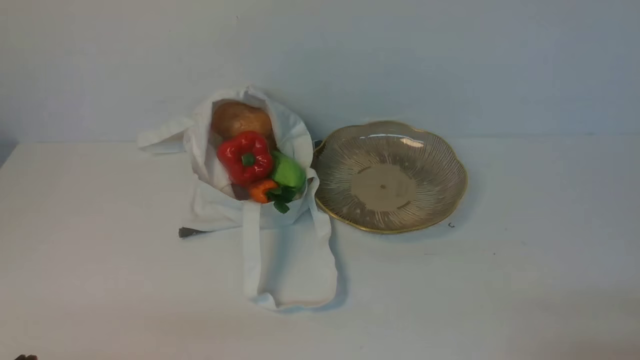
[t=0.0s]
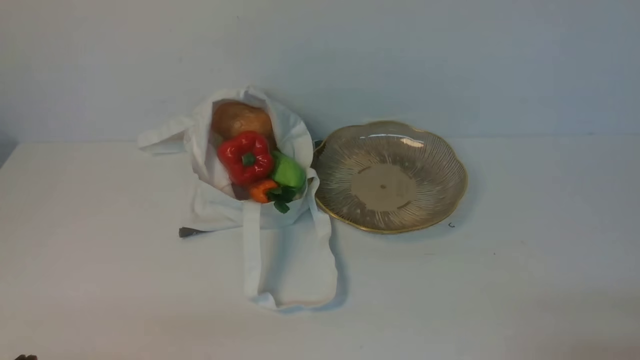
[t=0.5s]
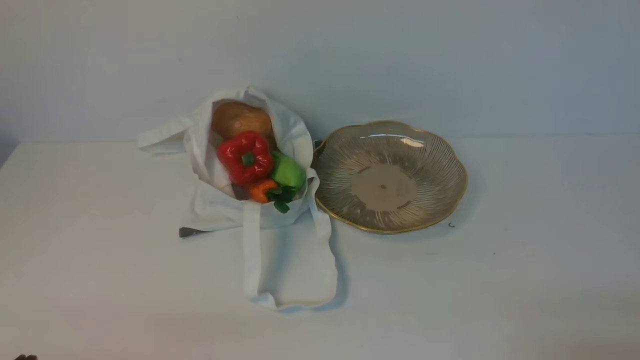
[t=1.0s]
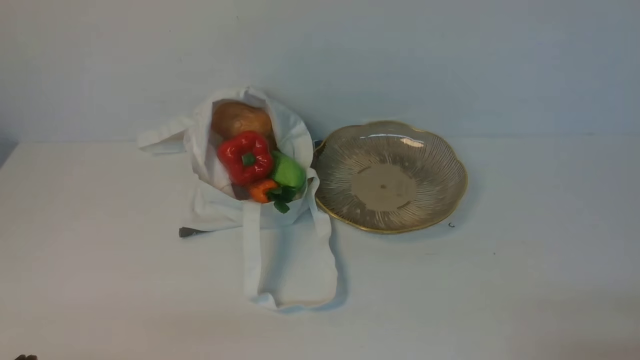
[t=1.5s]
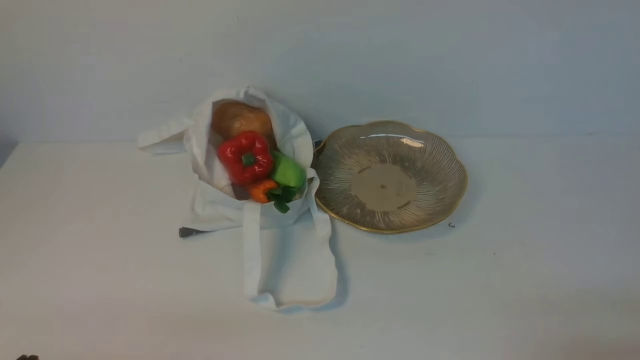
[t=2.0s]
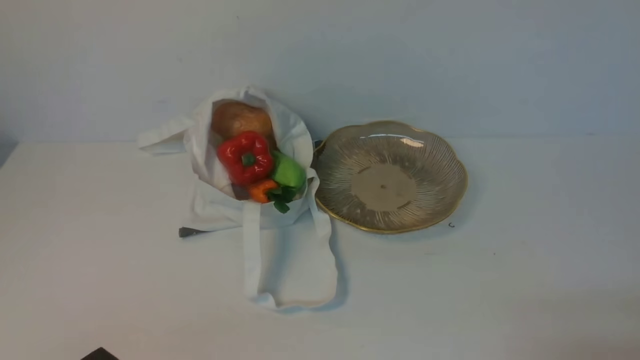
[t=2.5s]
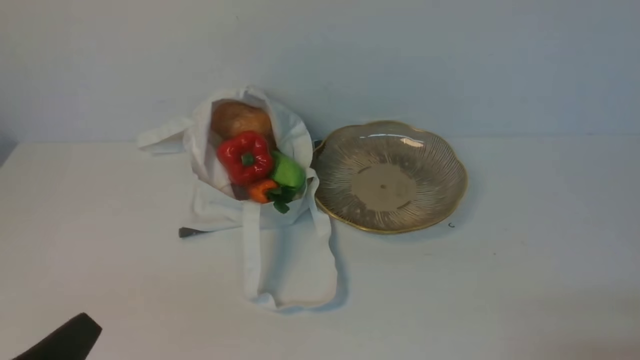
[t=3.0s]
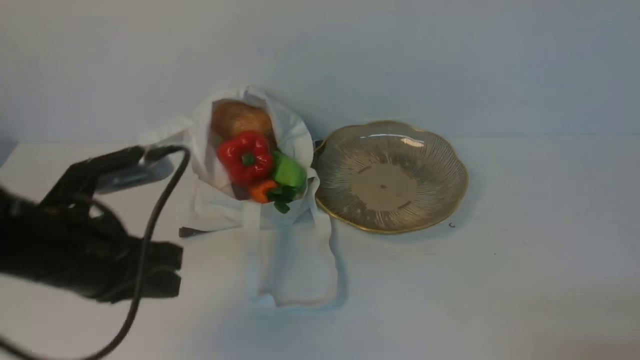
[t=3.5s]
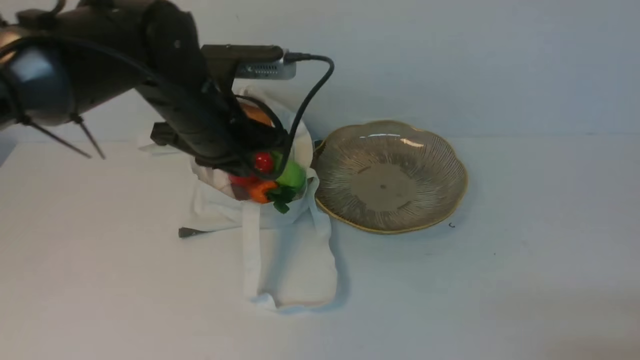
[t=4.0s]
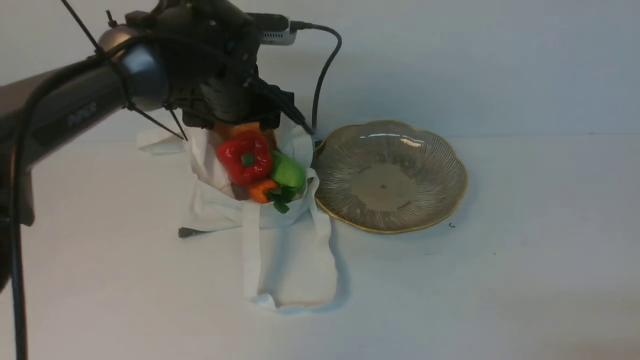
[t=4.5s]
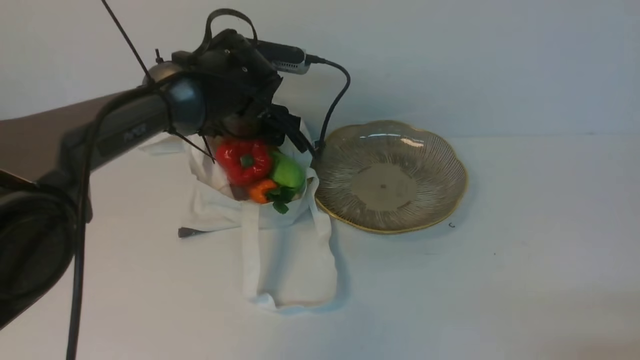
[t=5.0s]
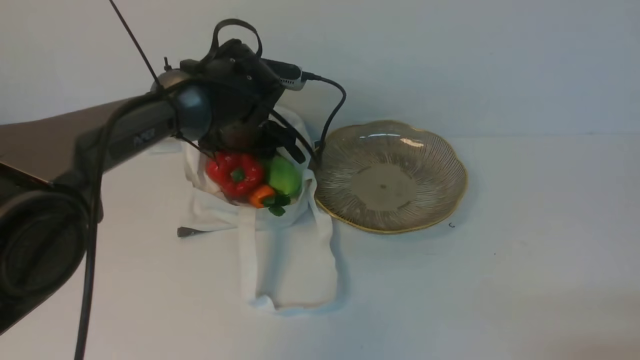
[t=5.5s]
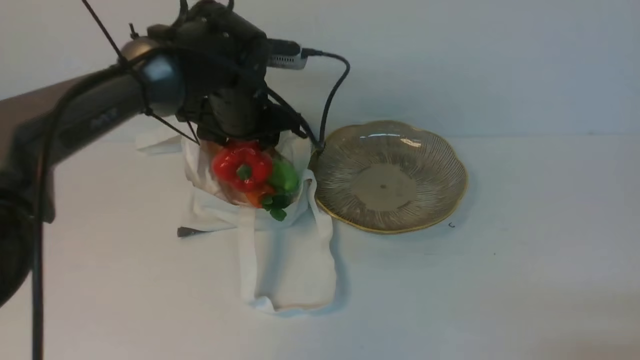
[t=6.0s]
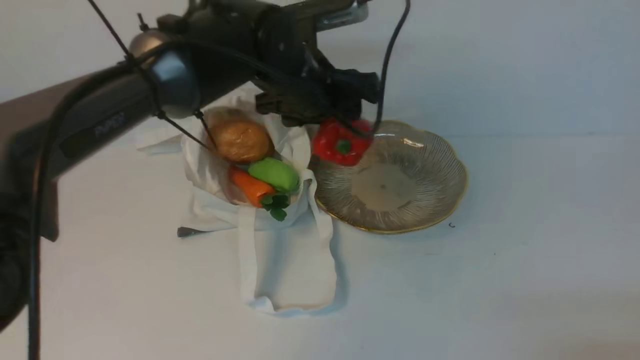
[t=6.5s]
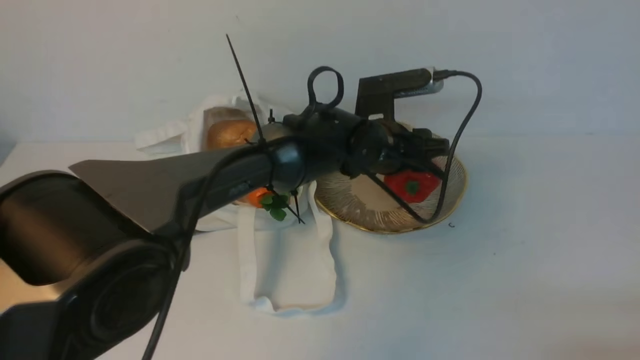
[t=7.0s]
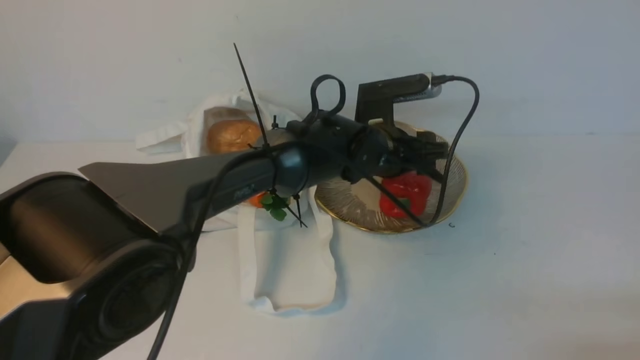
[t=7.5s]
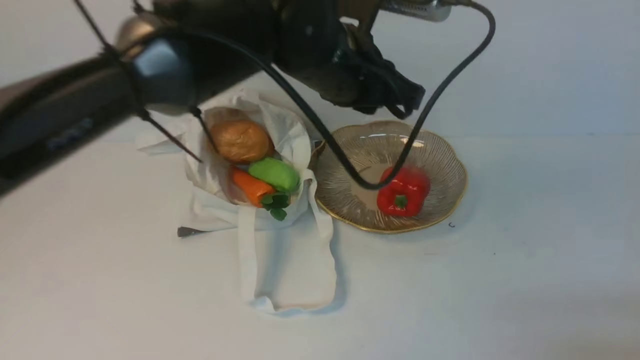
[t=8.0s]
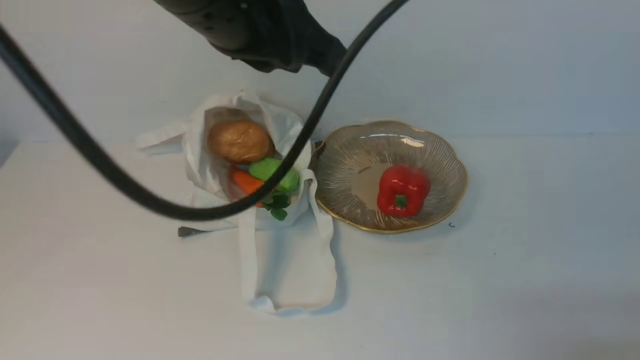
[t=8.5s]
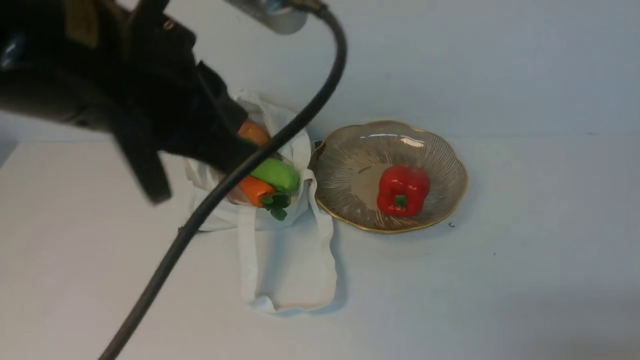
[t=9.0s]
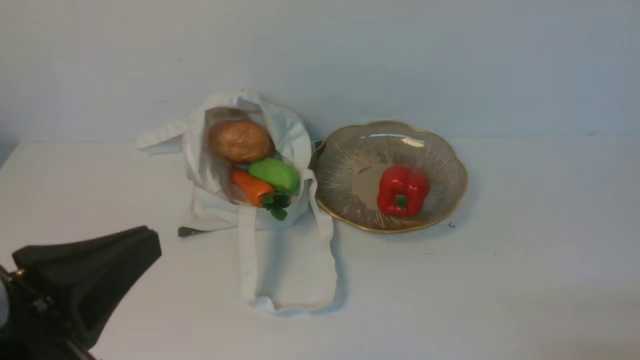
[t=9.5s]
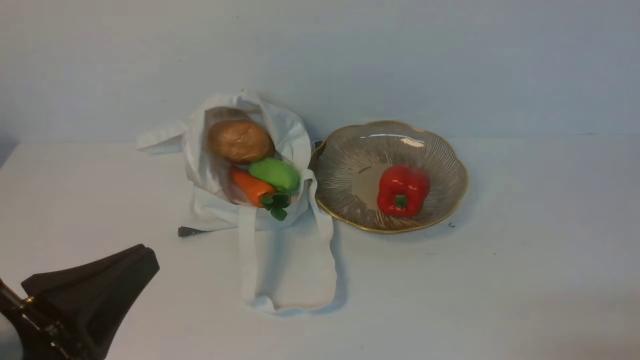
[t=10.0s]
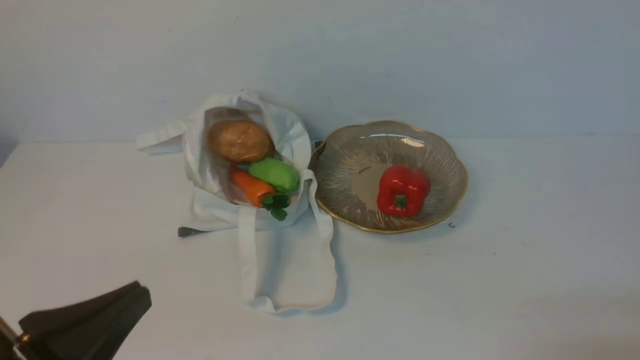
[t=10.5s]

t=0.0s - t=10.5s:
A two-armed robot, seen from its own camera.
Task of the whole recording: take vegetables from cloth bag on white table place on plate.
Step, t=0.0s - t=5.5s: Grasp the bell pepper with left gripper.
Step, t=6.0s - t=7.5s: Place the bell pepper on the plate with left gripper.
t=2.0s - t=4.0s: The left gripper heads forward and to the right, covering approximately 30 cm.
t=4.0s - t=6.5s: The left gripper travels to the right and forward by approximately 10 cm, and opens.
t=6.5s - t=8.5s: The left gripper goes some 20 cm upward and backward, and closes its fingers.
t=8.5s - t=10.5s: The left gripper goes about 30 cm backward, downward and to the left.

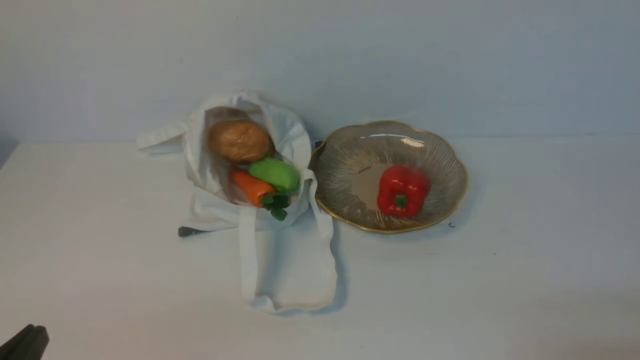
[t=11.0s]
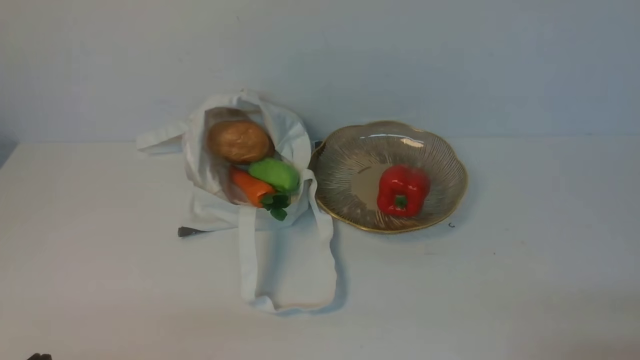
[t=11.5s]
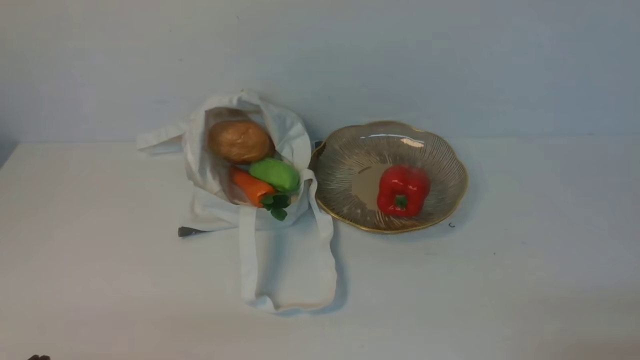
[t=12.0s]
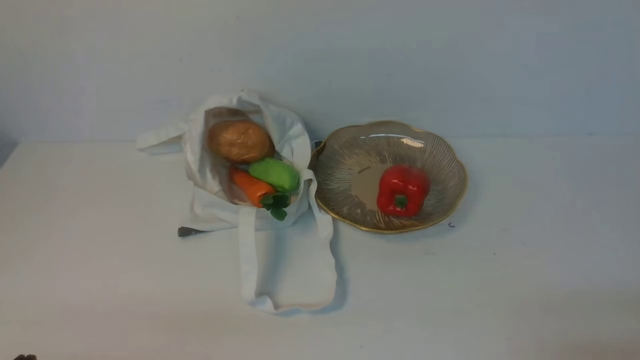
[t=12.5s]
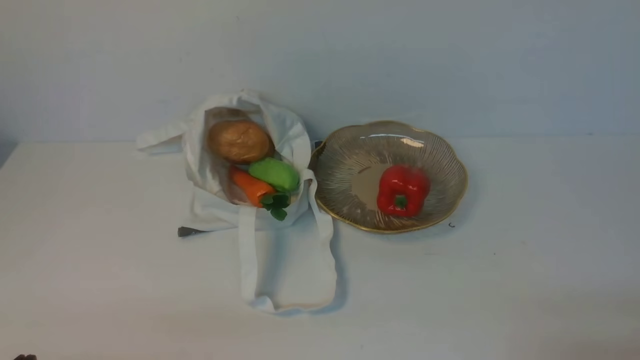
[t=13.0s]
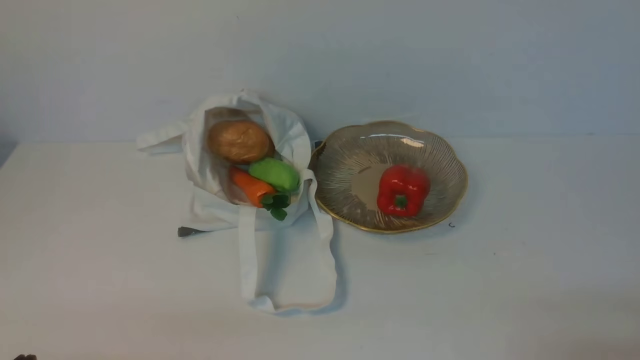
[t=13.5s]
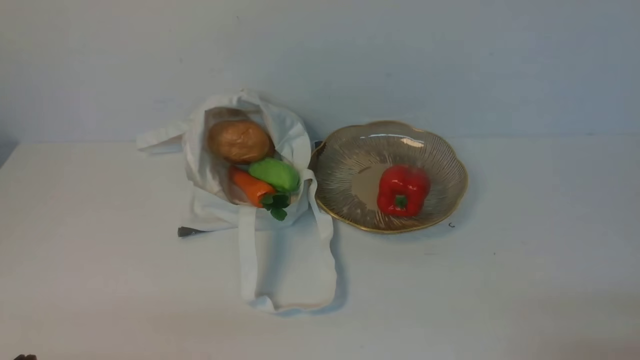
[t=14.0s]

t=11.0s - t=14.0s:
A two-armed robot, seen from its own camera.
Task of the whole recording: take vegetables from cloth bag on white table place on plate.
t=12.5s - t=14.0s: Both grippers stay about where they are.
